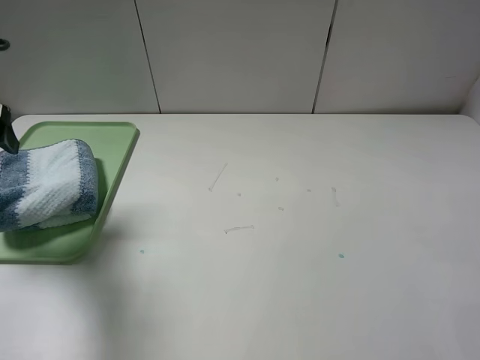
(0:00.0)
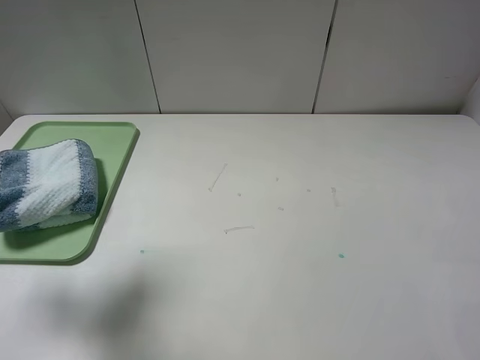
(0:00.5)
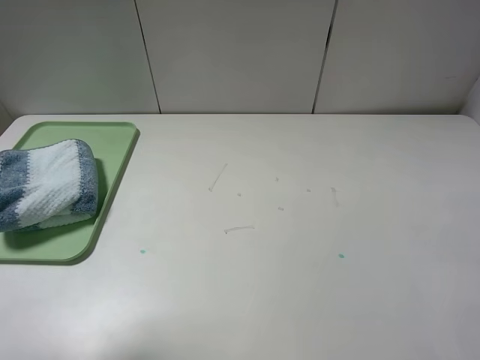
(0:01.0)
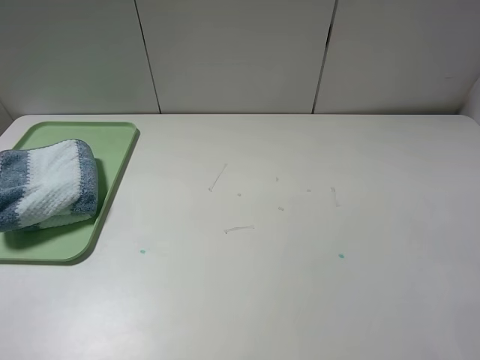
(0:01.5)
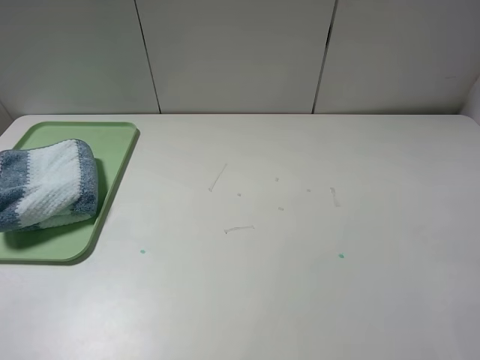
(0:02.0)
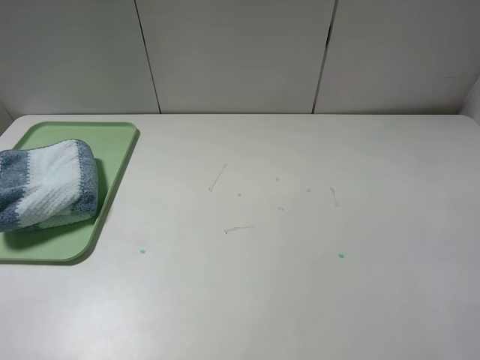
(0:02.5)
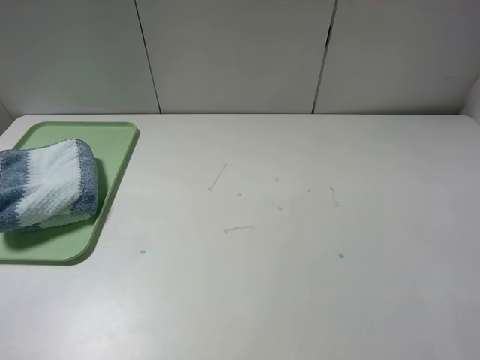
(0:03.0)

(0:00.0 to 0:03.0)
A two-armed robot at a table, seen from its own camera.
0:00.0 - 0:01.5: The left gripper moves backward, approximately 25 cm.
